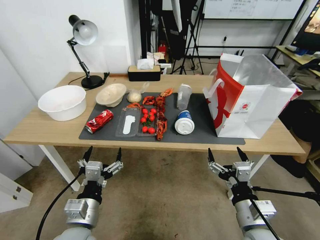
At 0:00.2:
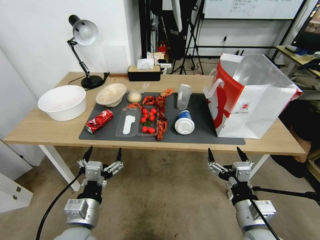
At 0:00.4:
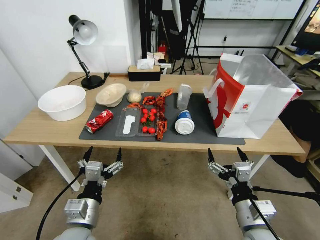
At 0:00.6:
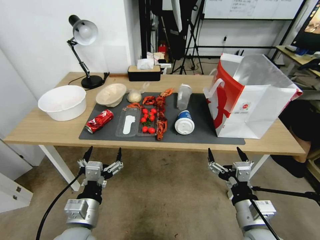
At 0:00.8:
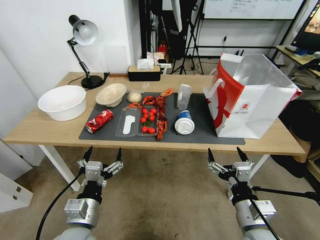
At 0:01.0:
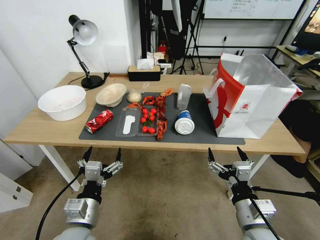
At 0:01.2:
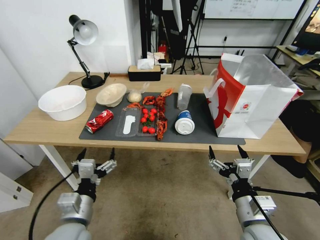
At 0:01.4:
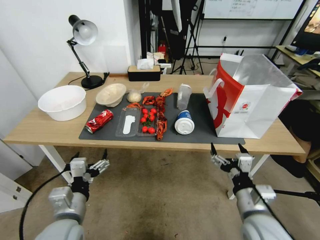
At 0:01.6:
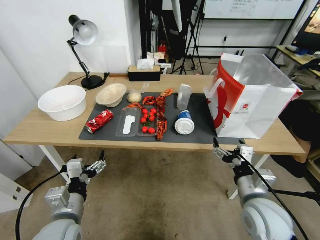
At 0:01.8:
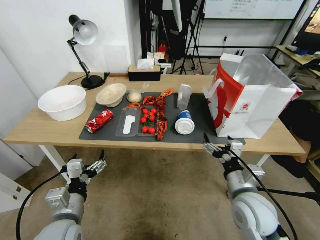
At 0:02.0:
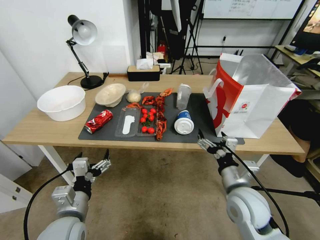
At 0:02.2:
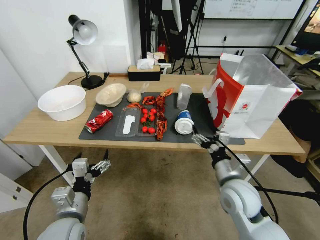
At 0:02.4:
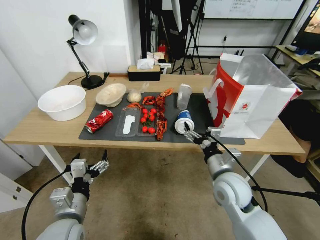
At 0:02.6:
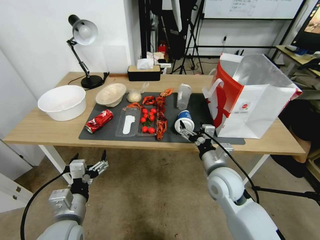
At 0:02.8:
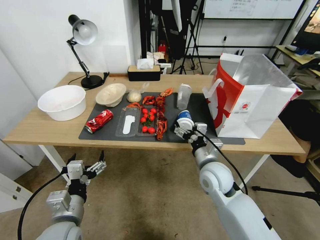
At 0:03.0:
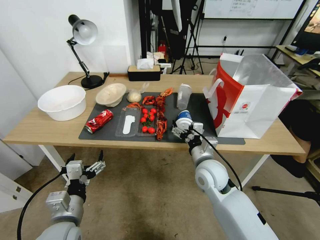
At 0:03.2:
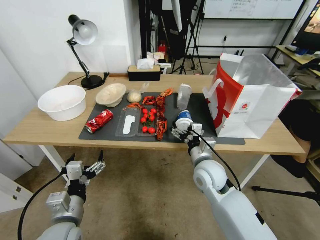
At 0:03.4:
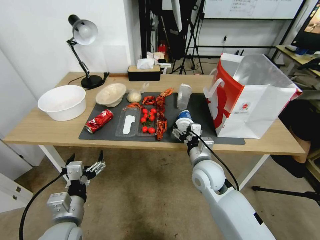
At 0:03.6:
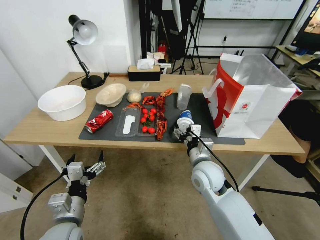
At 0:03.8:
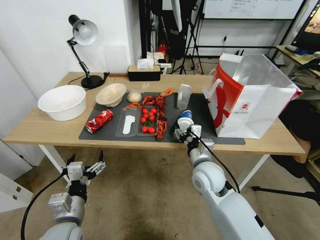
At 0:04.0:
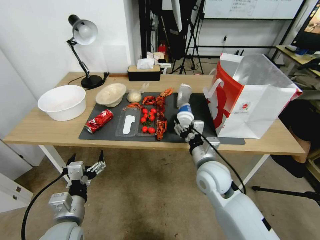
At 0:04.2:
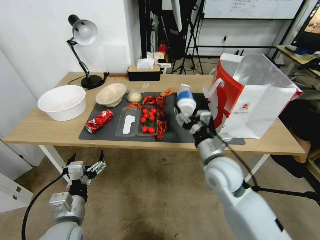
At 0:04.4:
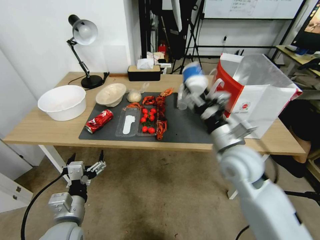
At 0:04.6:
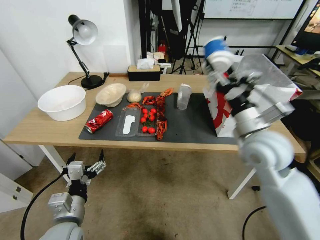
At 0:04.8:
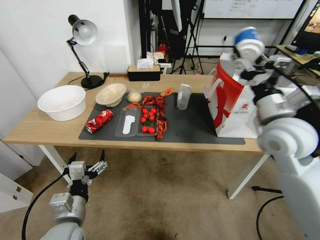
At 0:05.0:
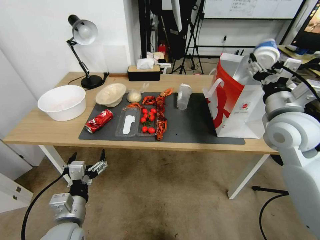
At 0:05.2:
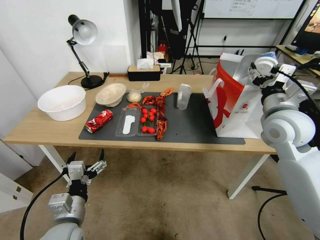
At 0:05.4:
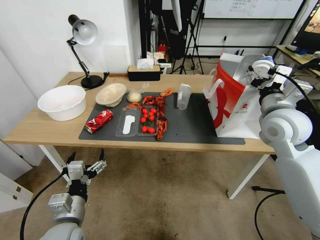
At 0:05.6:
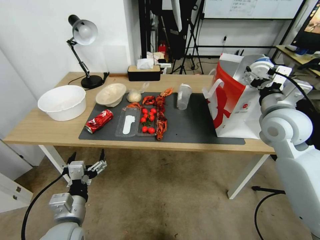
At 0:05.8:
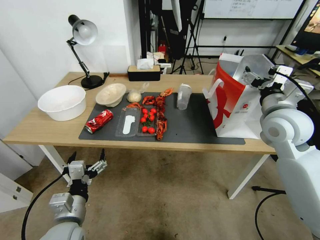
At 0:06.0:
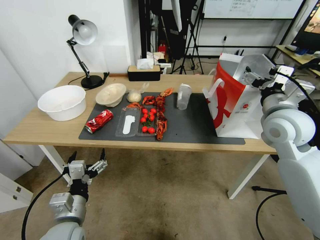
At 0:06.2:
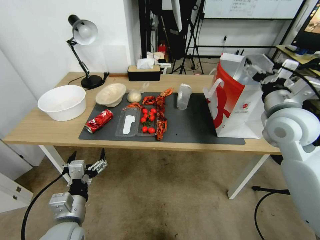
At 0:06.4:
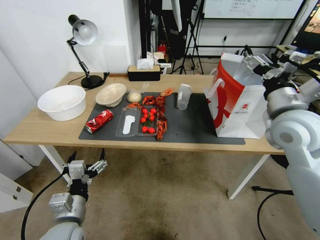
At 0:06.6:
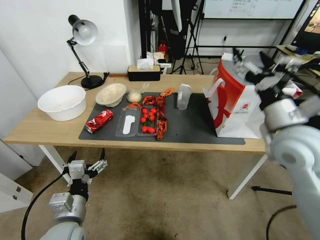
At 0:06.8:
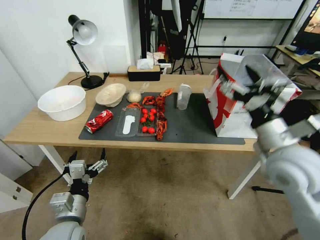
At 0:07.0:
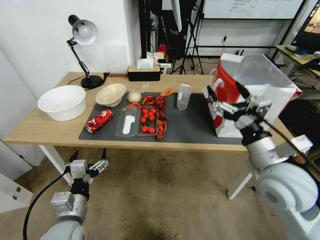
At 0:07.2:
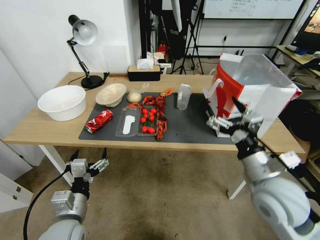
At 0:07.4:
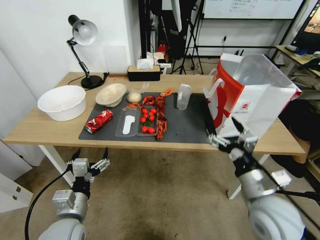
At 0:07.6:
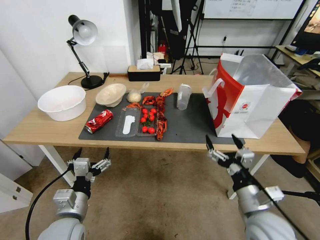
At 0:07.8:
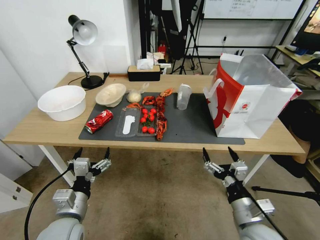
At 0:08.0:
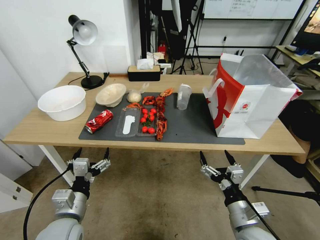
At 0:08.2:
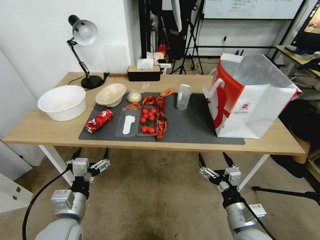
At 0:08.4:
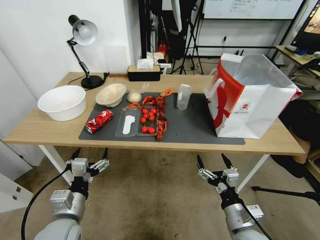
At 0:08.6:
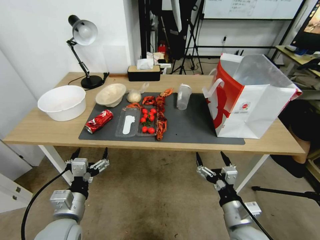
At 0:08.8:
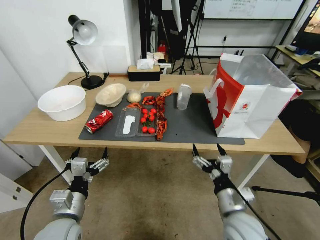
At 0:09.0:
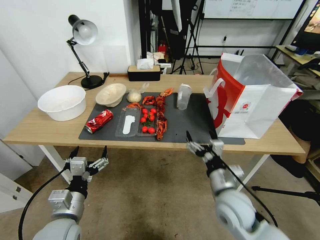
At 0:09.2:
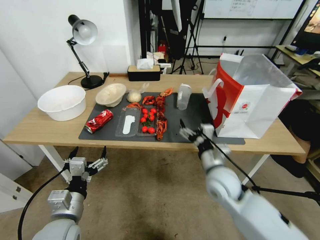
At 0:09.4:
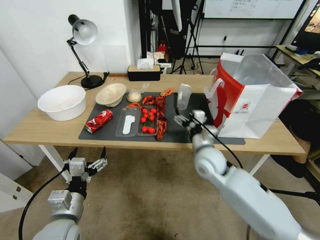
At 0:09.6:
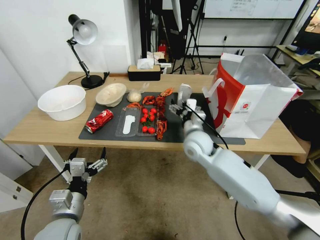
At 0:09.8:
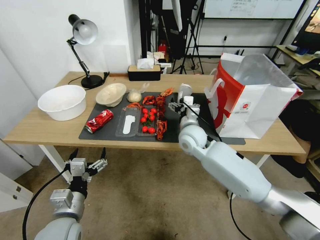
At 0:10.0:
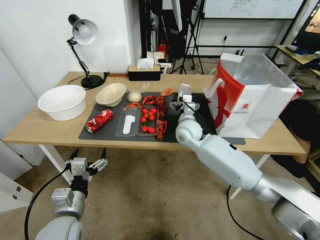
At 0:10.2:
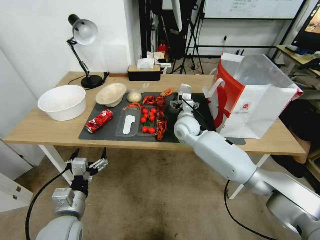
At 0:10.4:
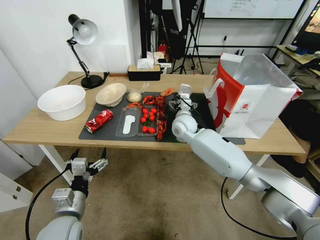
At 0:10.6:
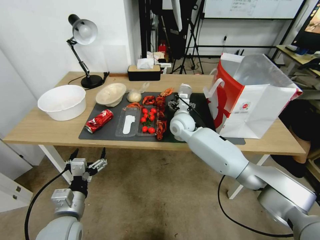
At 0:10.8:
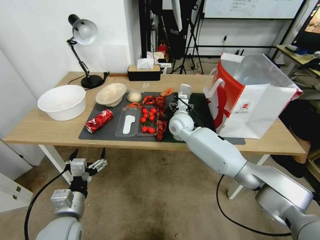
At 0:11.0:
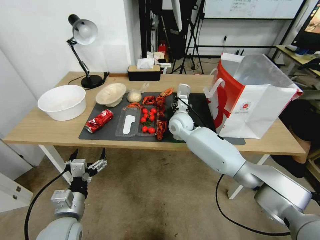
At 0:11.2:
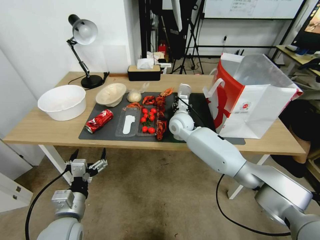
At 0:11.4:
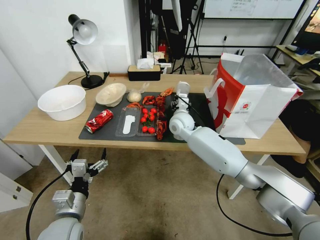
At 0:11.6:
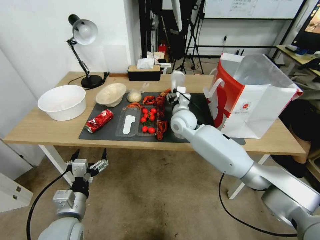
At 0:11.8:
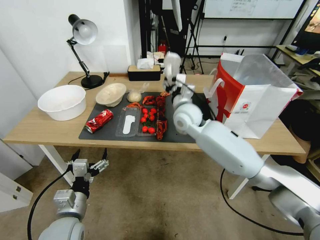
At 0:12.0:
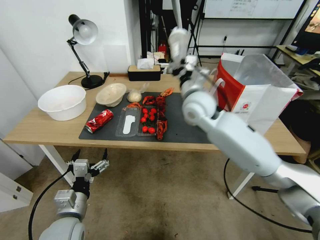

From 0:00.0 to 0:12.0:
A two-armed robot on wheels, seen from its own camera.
From 0:01.6 to 0:03.0: The right gripper goes about 15 cm forward and to the left.
From 0:03.0 to 0:04.4: The right gripper travels upward by approximately 10 cm, and closes.
From 0:04.4 to 0:06.0: The right gripper goes approximately 15 cm to the right, upward and forward, and opens.
From 0:06.0 to 0:07.6: The right gripper moves backward and downward, some 25 cm.
From 0:07.6 to 0:09.0: The right gripper shifts by approximately 5 cm.
From 0:09.0 to 0:10.4: The right gripper heads forward, covering about 30 cm.
From 0:10.4 to 0:12.0: The right gripper goes approximately 15 cm upward, and closes.

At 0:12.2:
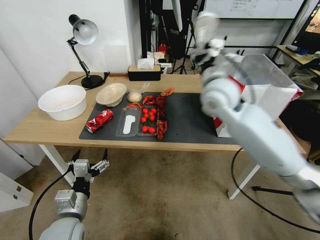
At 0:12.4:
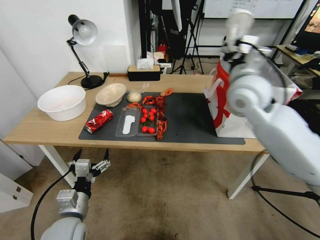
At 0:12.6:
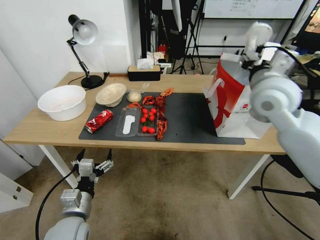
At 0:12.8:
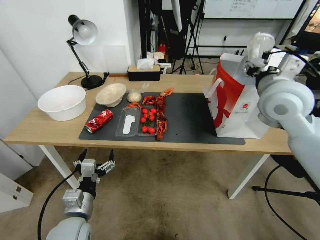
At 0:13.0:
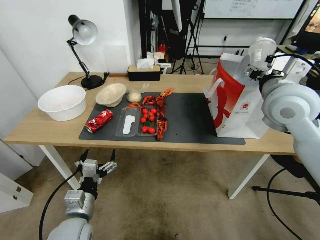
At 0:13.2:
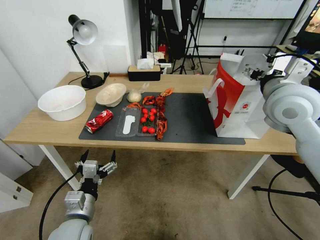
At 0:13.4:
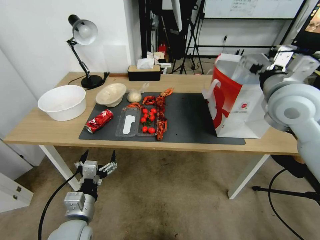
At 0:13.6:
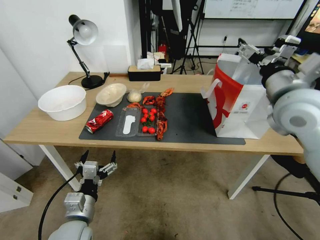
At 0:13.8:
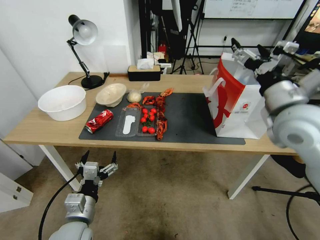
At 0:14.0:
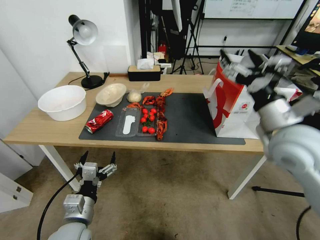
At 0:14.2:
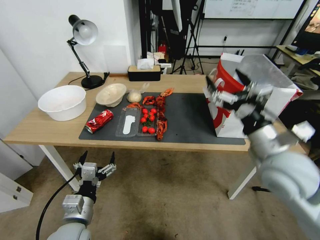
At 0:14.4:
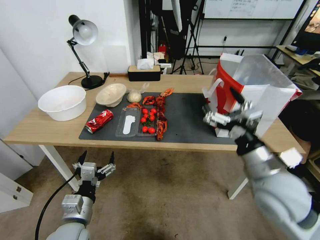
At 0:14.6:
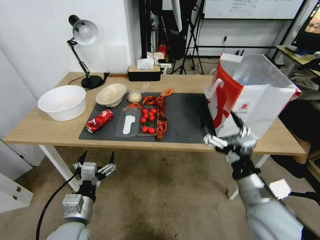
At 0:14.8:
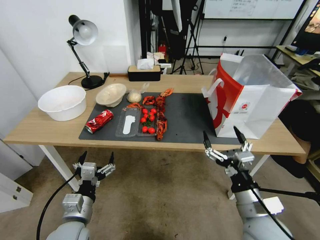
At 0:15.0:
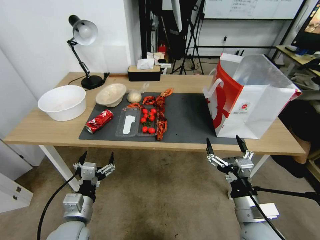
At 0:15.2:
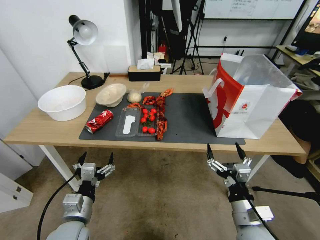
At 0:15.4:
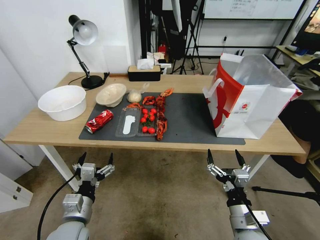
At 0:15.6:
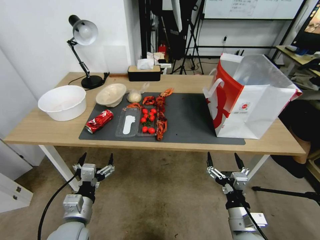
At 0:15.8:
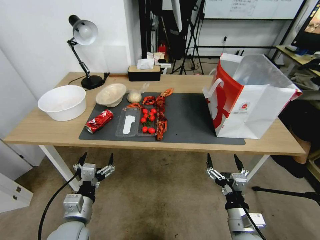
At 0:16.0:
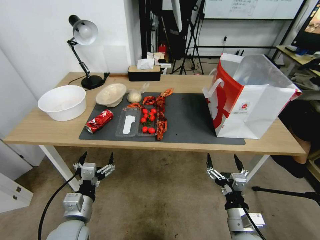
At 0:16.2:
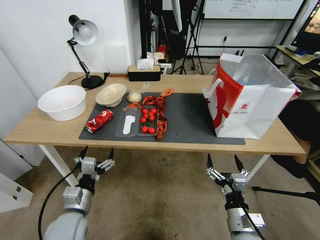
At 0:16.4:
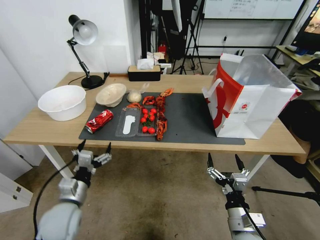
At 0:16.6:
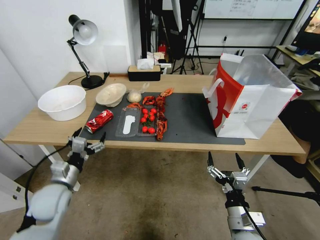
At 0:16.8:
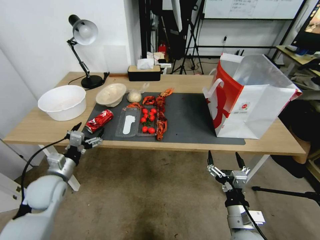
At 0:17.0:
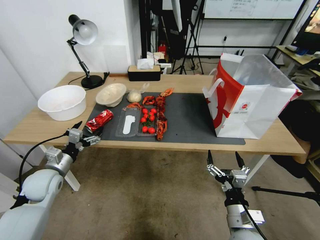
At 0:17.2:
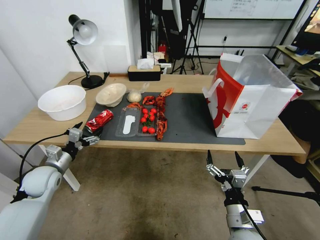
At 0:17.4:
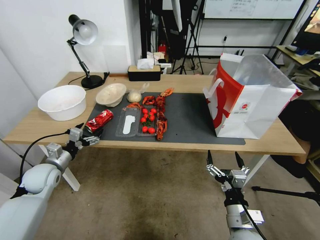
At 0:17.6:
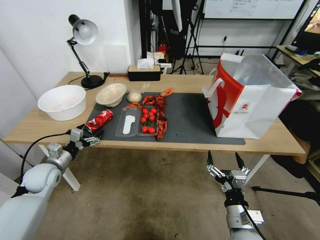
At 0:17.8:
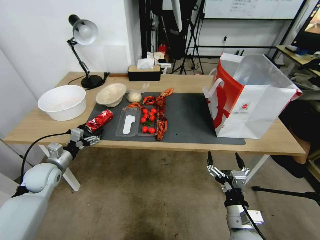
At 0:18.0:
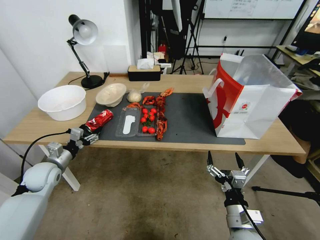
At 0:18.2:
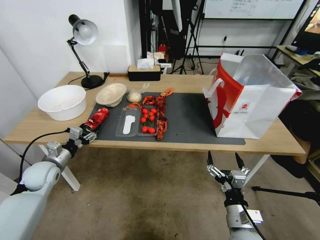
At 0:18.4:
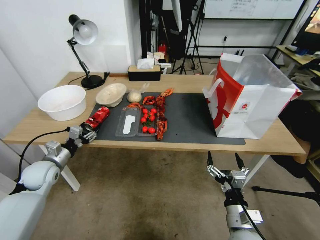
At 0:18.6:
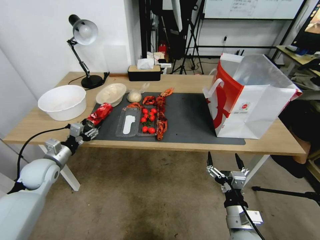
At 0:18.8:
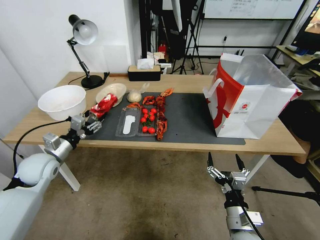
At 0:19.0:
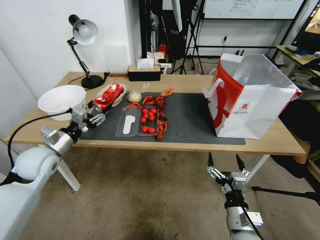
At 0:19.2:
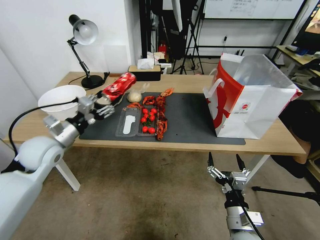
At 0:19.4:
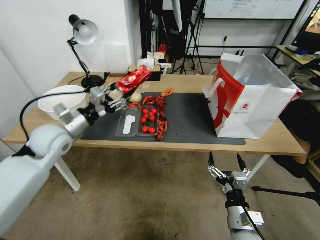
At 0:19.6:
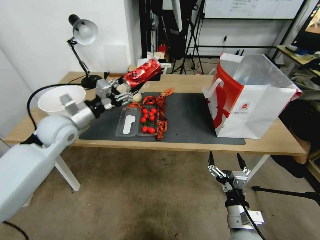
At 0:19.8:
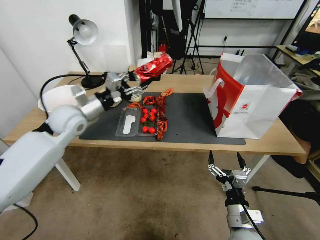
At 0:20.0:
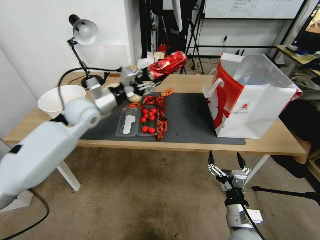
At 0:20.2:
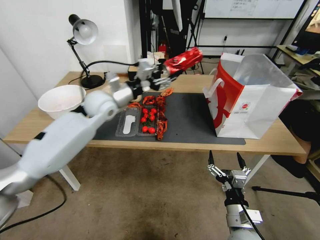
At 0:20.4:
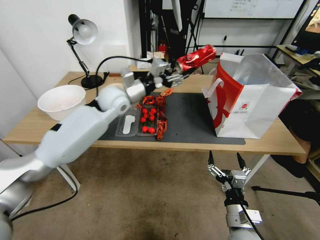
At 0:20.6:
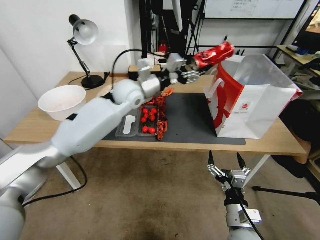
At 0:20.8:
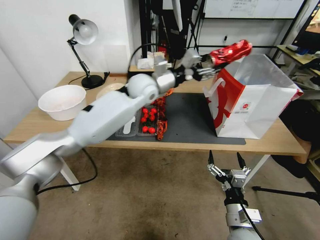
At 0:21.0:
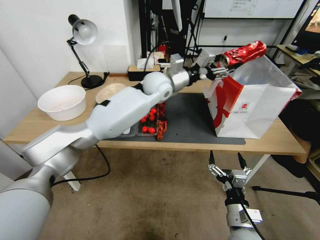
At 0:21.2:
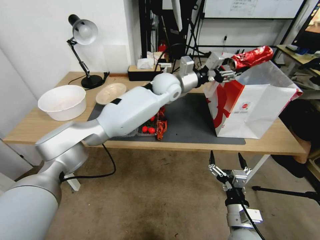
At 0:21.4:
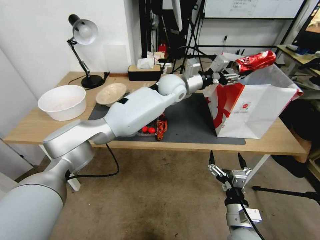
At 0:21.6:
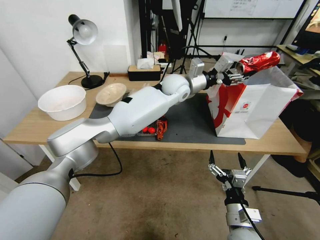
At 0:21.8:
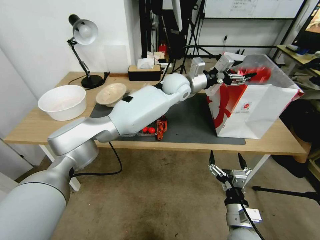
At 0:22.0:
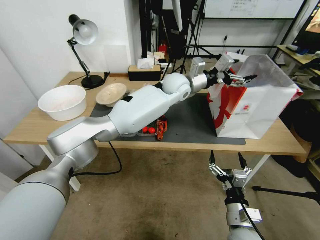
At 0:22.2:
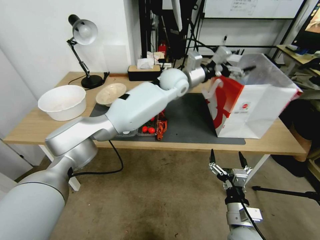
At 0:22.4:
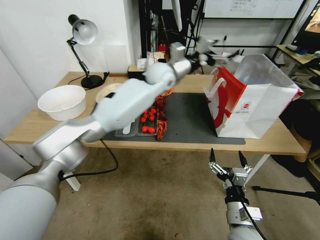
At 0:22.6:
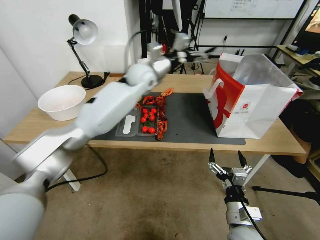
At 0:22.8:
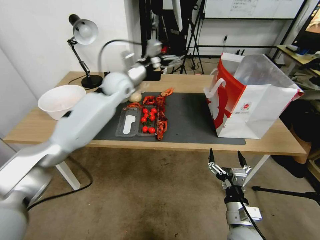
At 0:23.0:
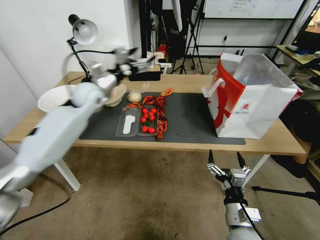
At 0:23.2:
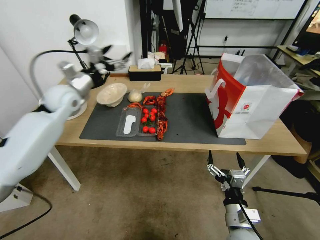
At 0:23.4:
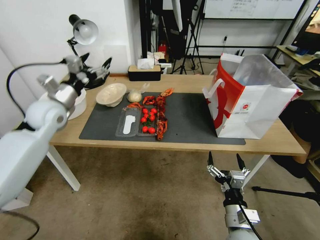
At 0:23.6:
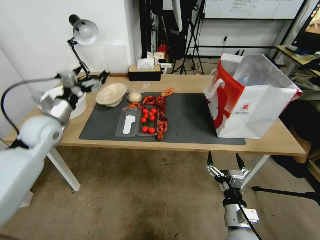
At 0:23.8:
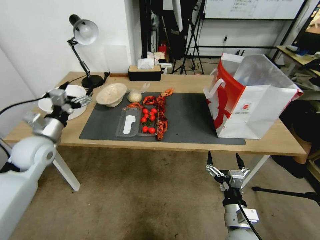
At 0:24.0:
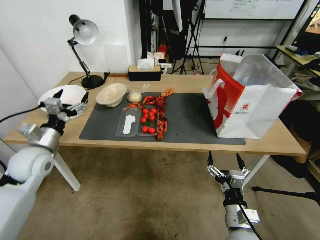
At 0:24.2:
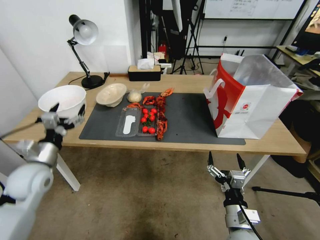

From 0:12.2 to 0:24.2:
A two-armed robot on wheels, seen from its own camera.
From 0:12.2 to 0:13.8: The right gripper goes some 15 cm to the right and backward, and opens.
From 0:13.8 to 0:15.2: The right gripper moves downward and backward, about 30 cm.
From 0:15.2 to 0:16.6: The left gripper is displaced forward and to the left by approximately 10 cm.
From 0:16.6 to 0:18.2: The left gripper goes approximately 15 cm forward and to the left, and closes.
From 0:18.2 to 0:19.8: The left gripper goes roughly 25 cm upward, to the right and forward.
From 0:19.8 to 0:21.2: The left gripper goes some 35 cm to the right and forward.
From 0:21.2 to 0:22.6: The left gripper moves to the left, roughly 10 cm, and opens.
From 0:22.6 to 0:24.2: The left gripper heads backward, to the left and downward, covering approximately 40 cm.
